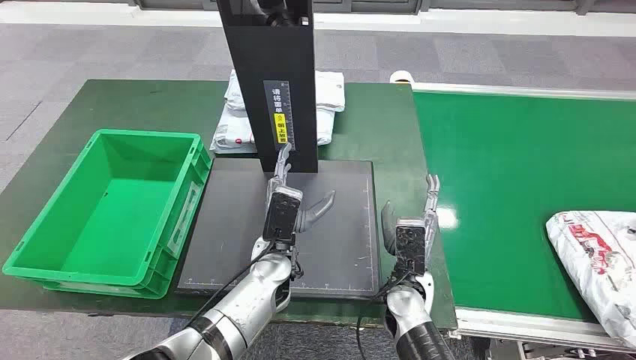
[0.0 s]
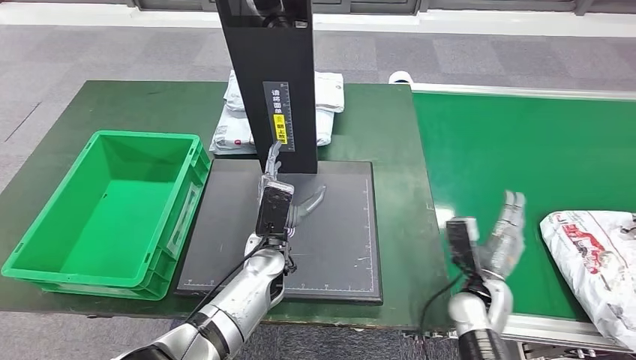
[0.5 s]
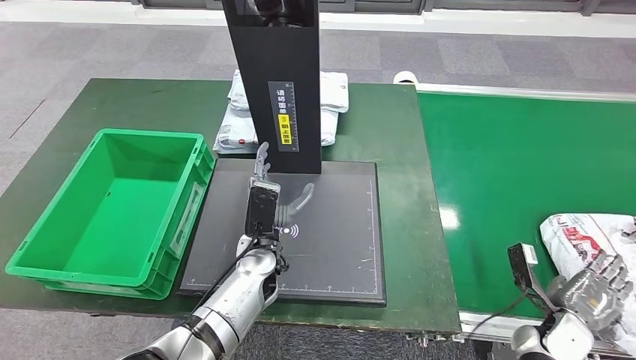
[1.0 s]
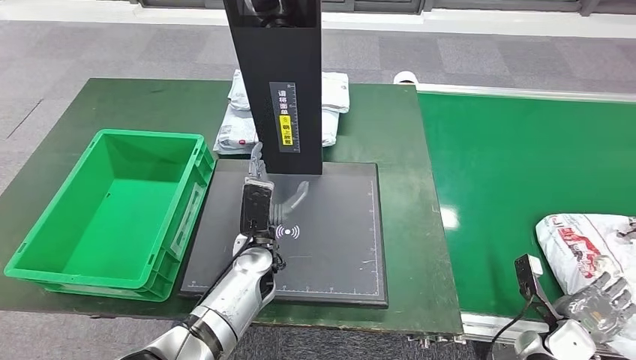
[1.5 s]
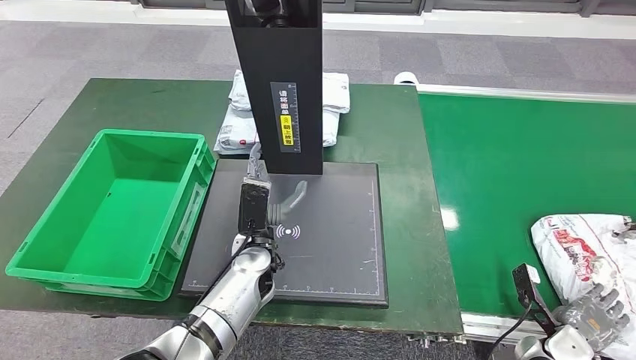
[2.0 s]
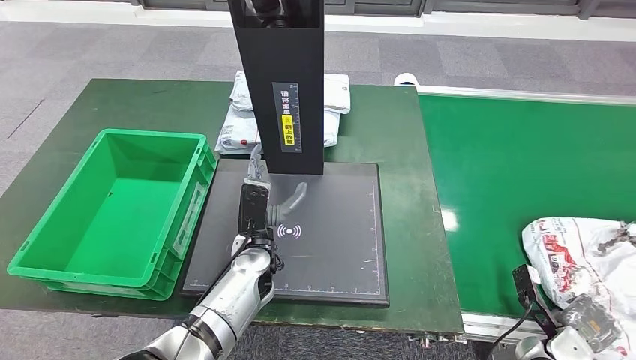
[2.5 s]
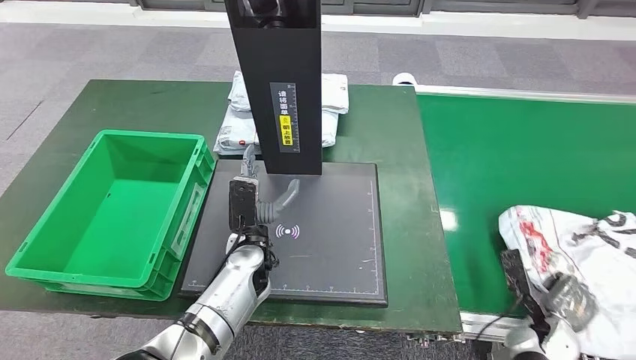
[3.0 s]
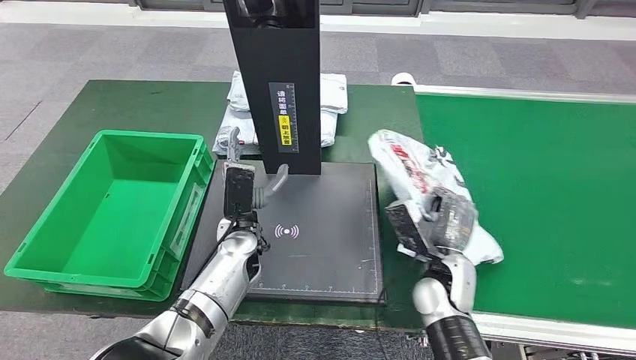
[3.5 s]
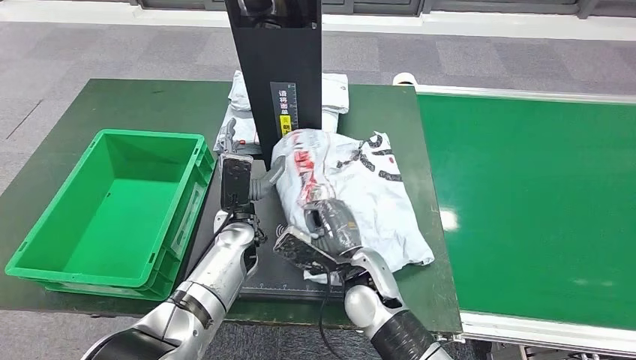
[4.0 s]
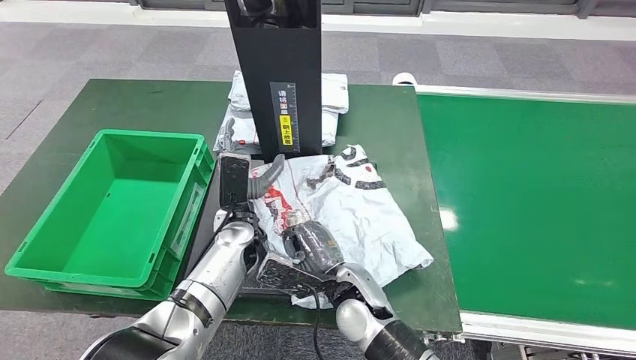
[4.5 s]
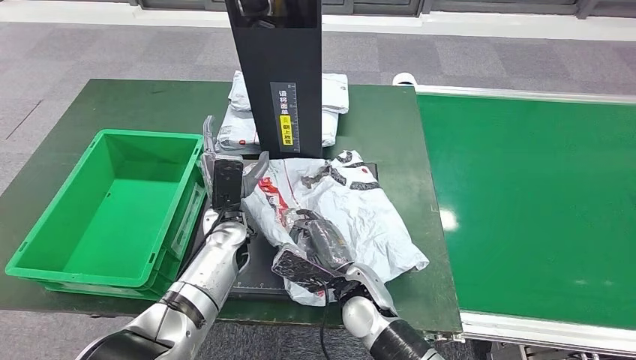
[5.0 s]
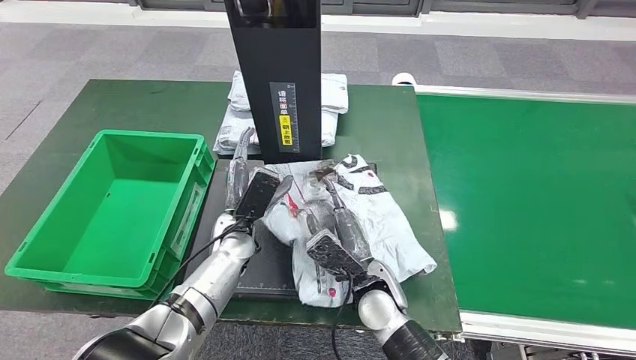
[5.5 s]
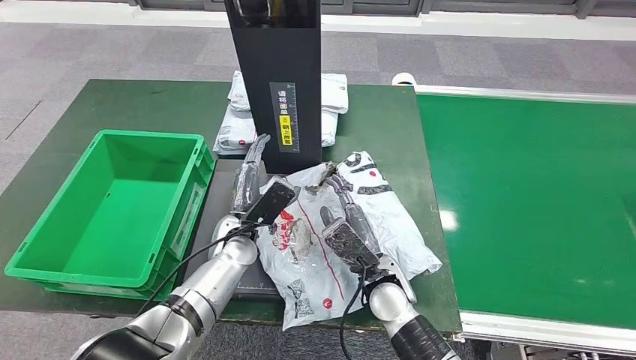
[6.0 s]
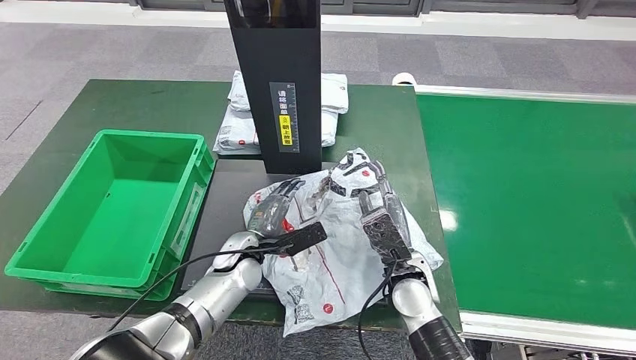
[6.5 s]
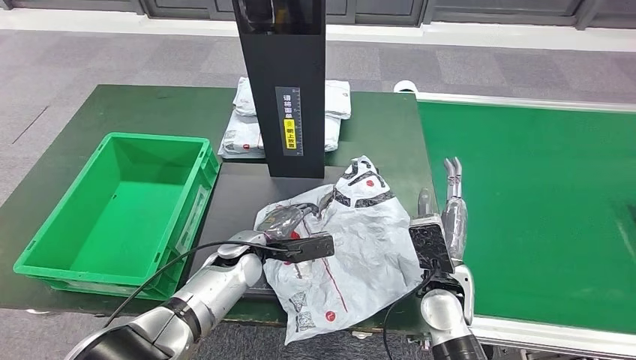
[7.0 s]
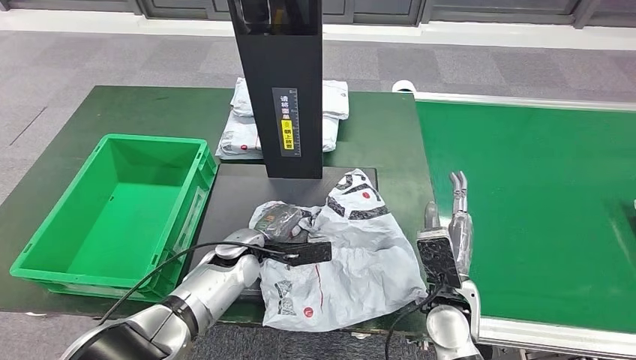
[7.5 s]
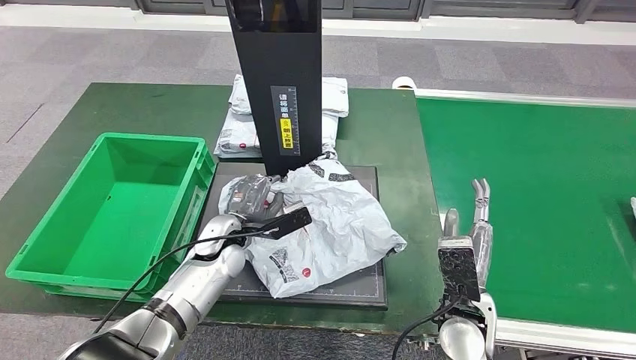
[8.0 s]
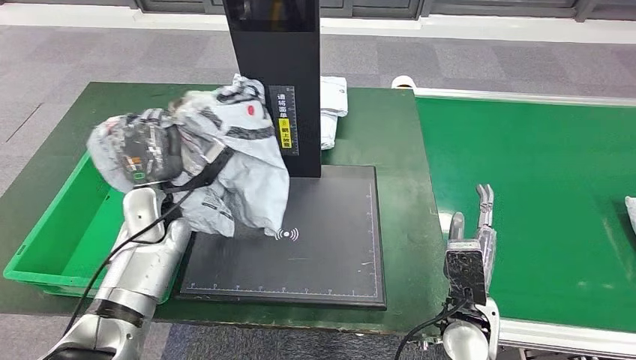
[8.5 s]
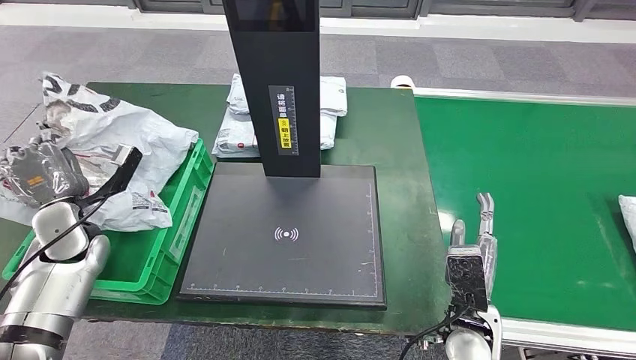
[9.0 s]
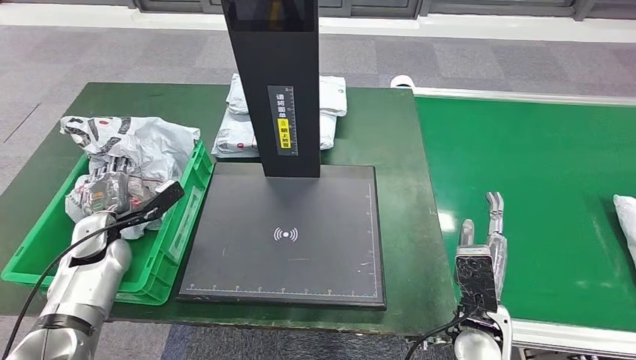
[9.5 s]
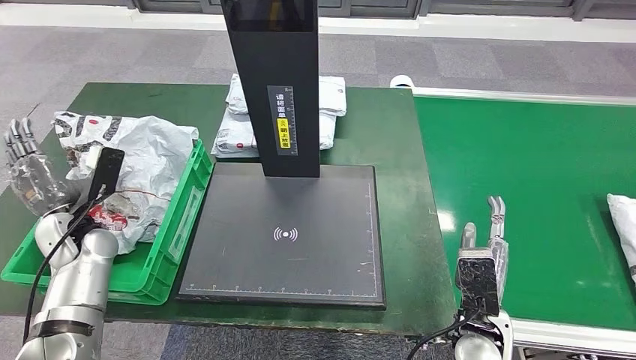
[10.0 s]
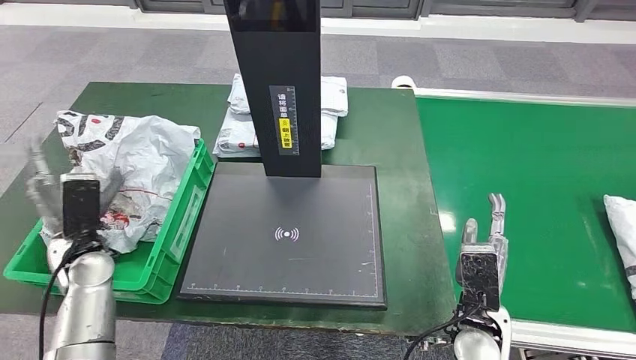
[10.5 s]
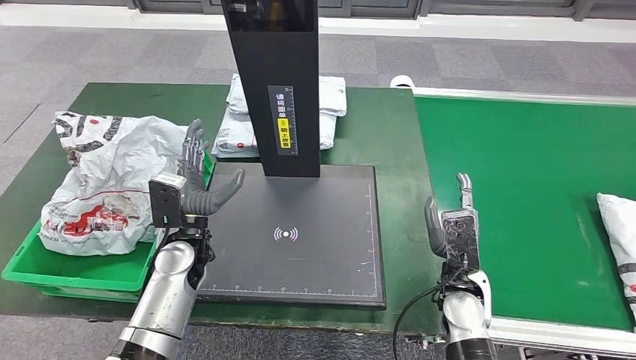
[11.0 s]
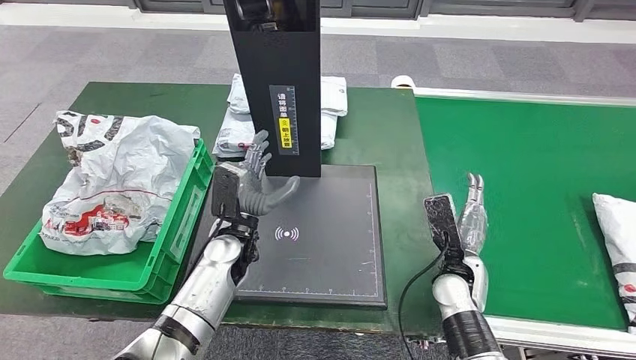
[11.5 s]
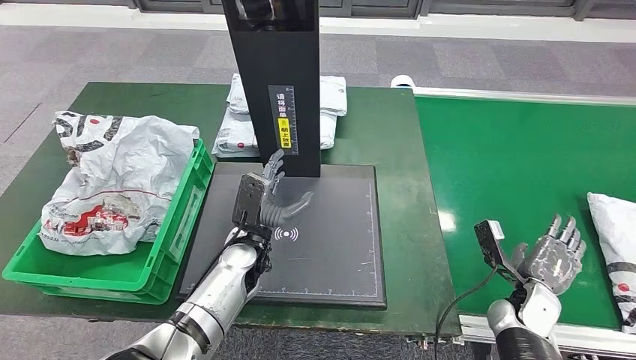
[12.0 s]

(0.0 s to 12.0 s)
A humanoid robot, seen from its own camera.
Step, 0.0 s - 3.5 s: Take the parcel off the conveyor belt.
Step, 4.0 s - 6.5 s: Place the parcel onto the inbound machine.
Step, 7.0 s - 8.5 s: Pick up the parcel from the inbound machine.
Step, 9.0 s - 10.5 s: Put the parcel inside the courier box.

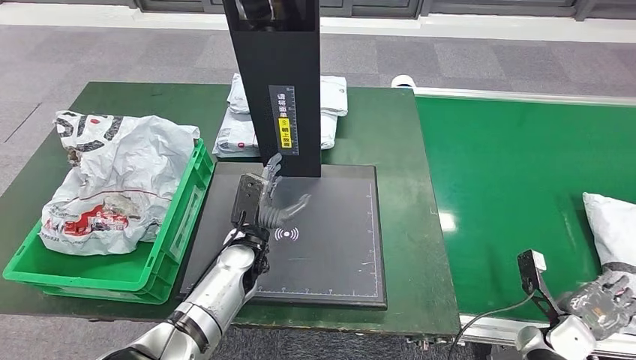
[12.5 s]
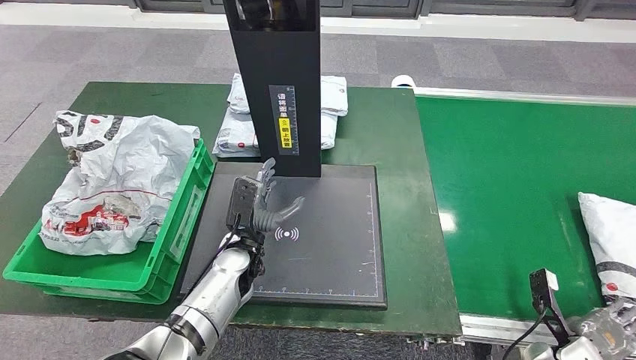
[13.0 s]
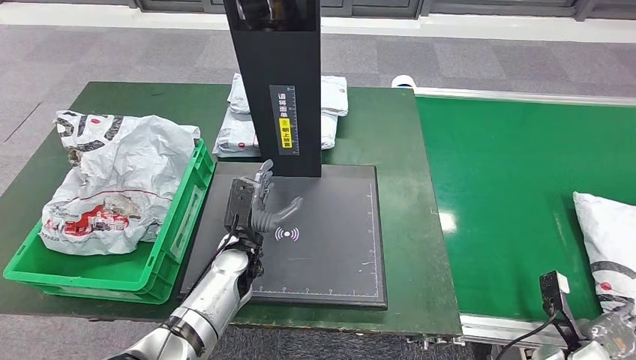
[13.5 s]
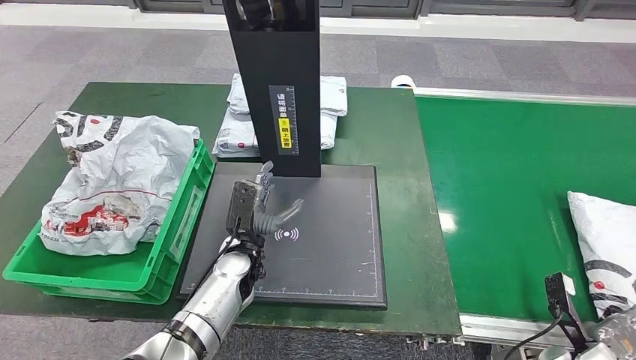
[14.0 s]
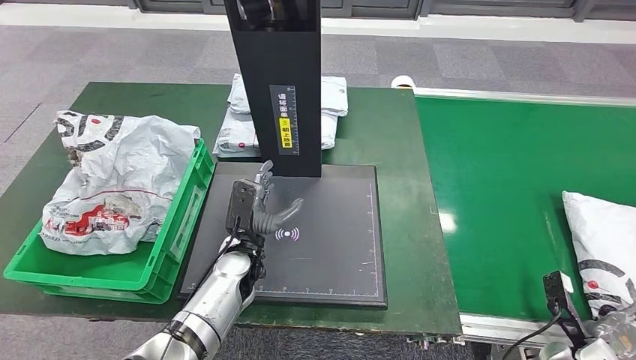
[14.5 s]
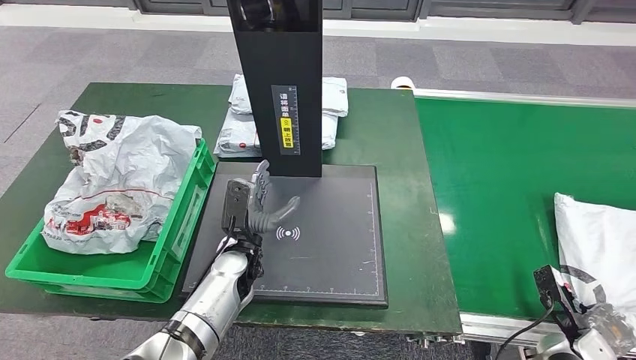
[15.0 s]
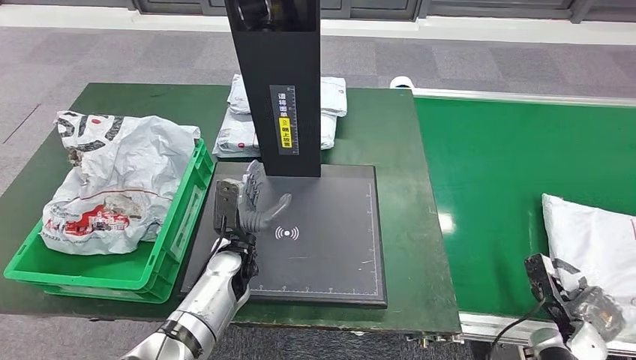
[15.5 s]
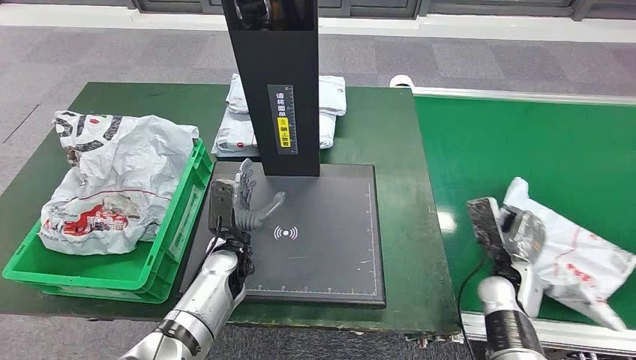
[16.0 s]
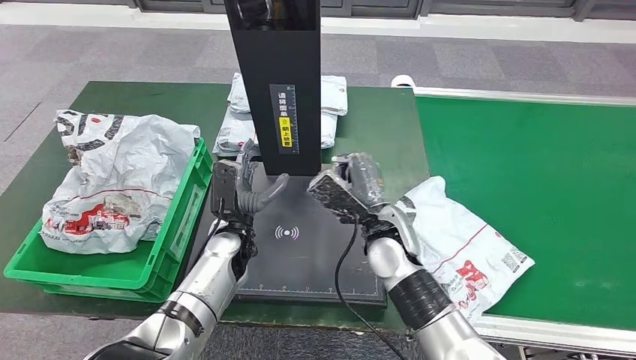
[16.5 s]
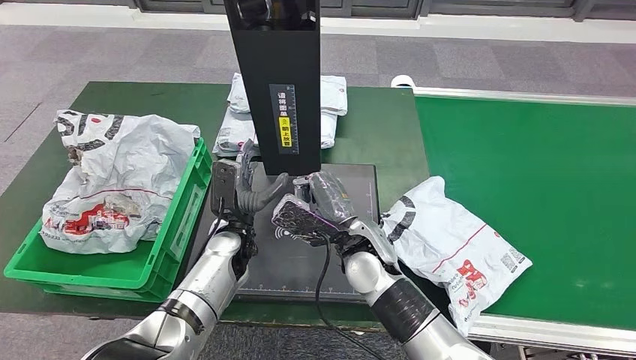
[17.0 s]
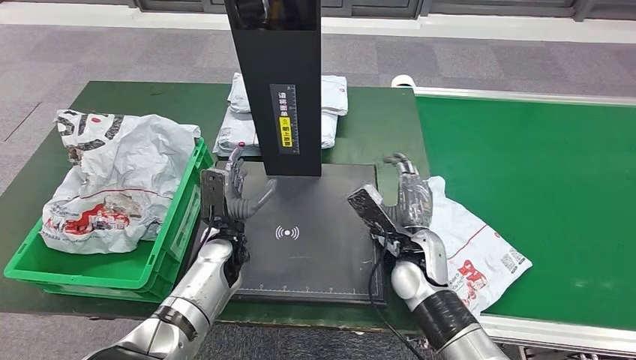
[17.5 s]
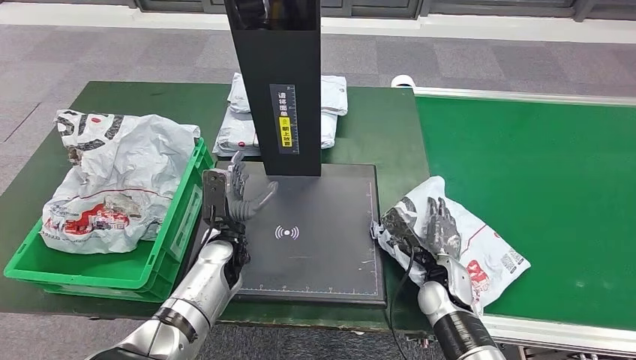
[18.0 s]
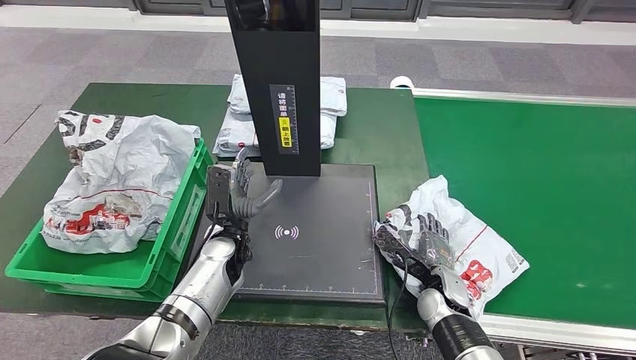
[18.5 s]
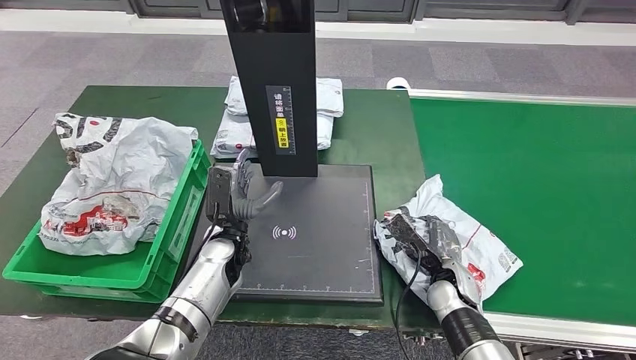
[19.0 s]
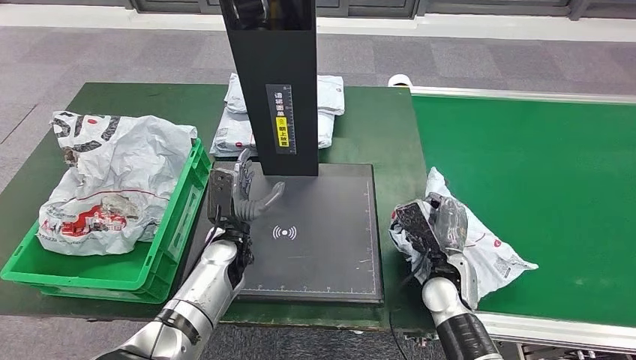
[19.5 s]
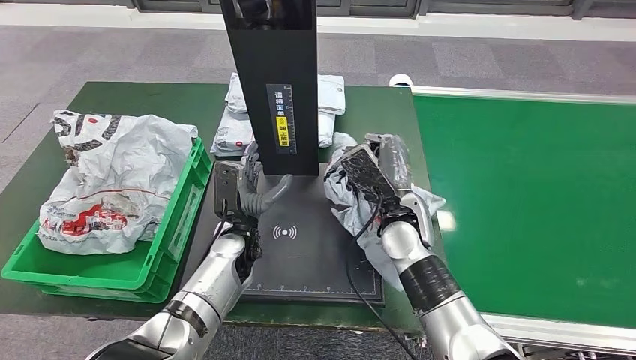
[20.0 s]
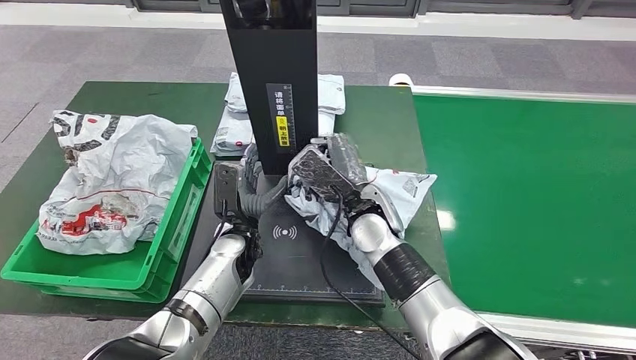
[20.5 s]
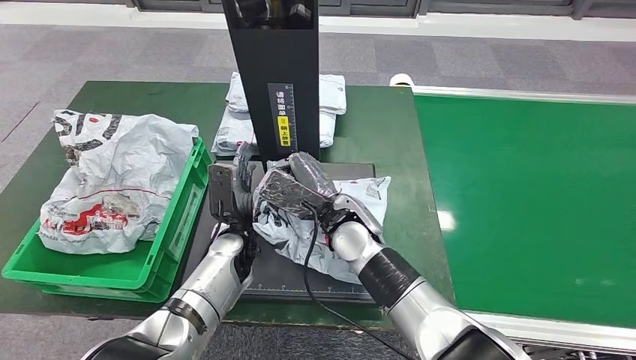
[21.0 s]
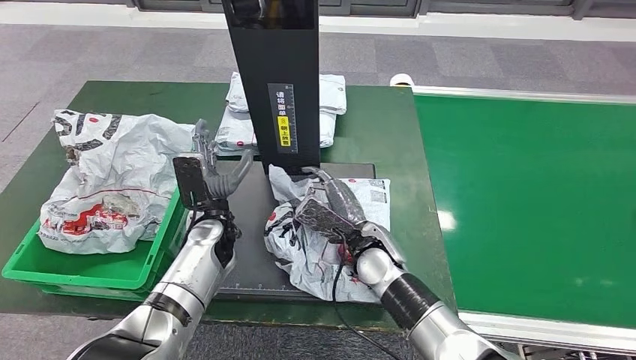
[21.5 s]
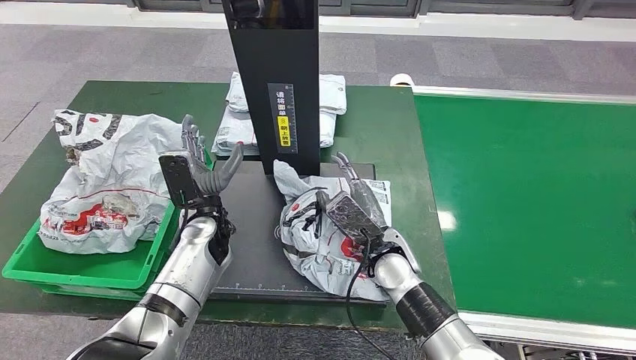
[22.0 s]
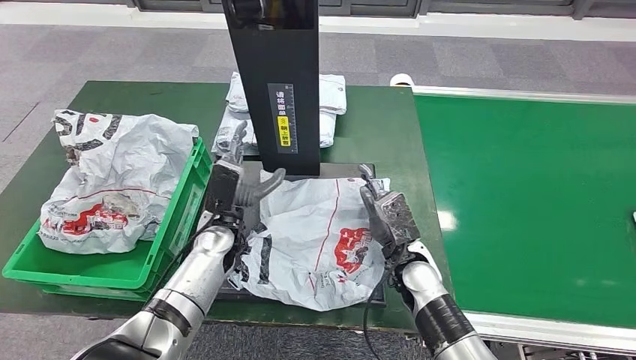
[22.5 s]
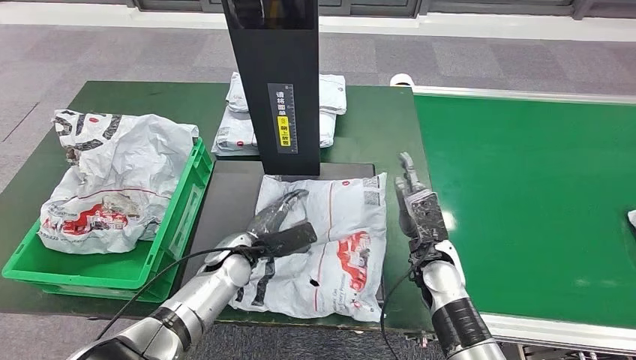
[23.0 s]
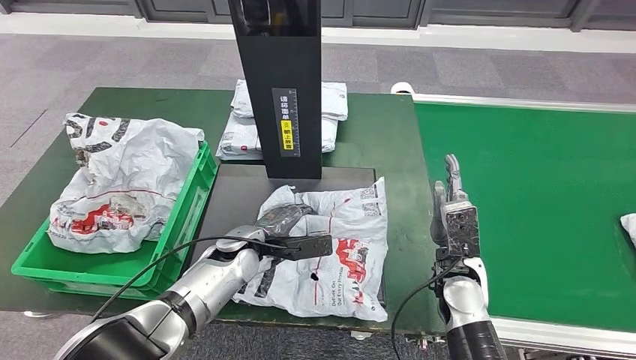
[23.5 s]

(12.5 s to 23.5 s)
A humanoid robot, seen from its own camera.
Step, 17.0 s - 20.0 s: Pick up the parcel from the conveyor belt.
Step, 20.5 s - 23.0 s: Place the parcel onto the inbound machine.
12.5 s - 14.5 s: The right hand shifts by roughly 5 cm.
14.5 s - 16.0 s: The right hand shifts approximately 20 cm to the left, forward and upward.
20.0 s - 21.5 s: The right hand is displaced downward by approximately 5 cm.
